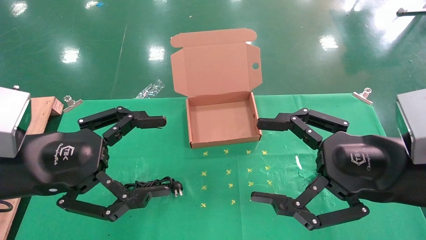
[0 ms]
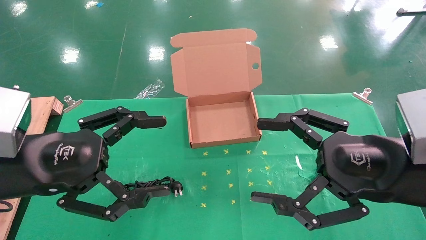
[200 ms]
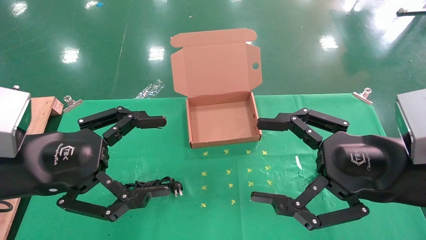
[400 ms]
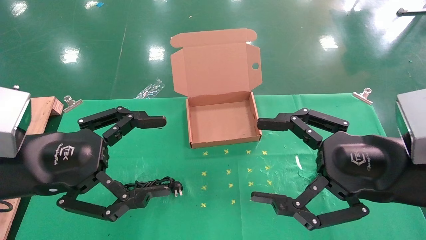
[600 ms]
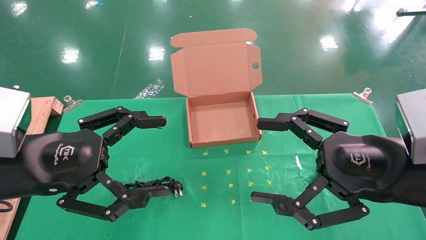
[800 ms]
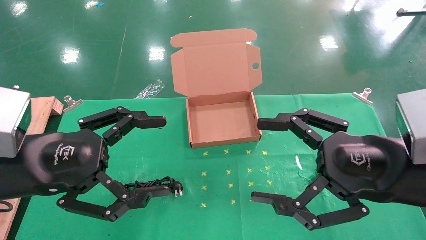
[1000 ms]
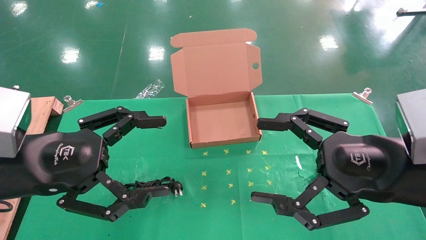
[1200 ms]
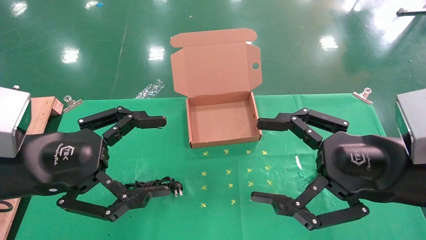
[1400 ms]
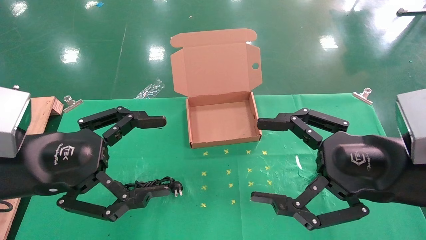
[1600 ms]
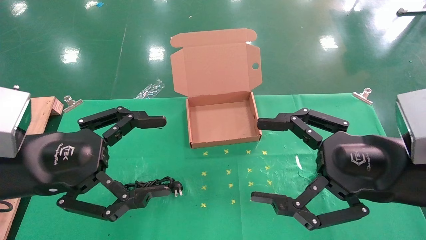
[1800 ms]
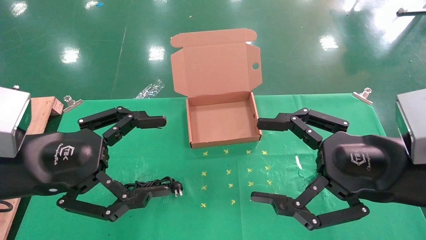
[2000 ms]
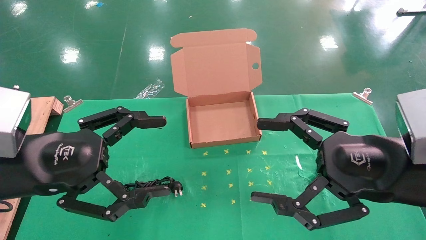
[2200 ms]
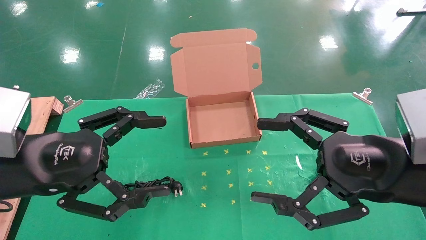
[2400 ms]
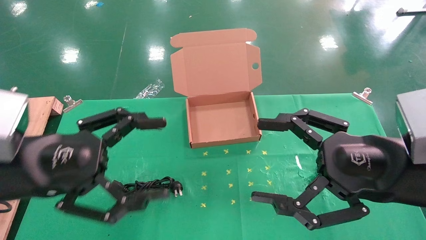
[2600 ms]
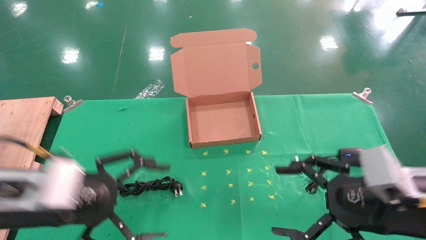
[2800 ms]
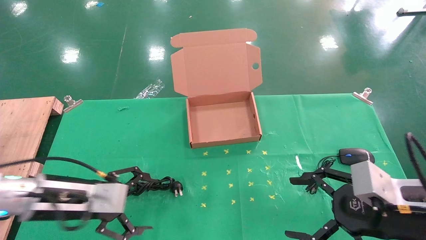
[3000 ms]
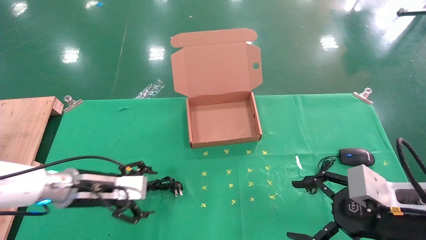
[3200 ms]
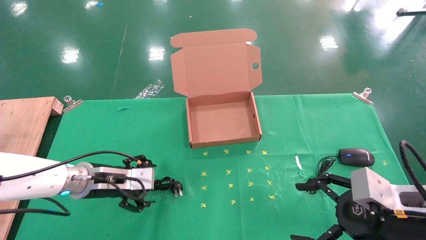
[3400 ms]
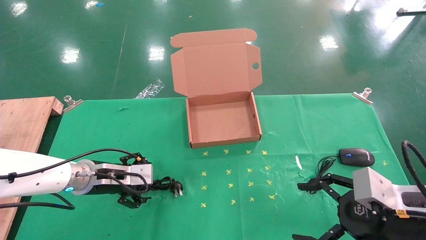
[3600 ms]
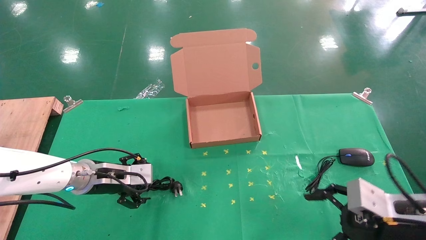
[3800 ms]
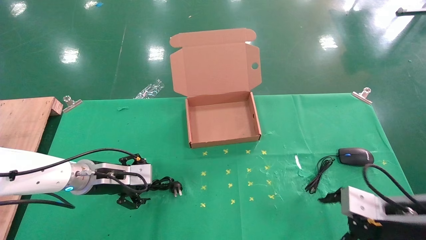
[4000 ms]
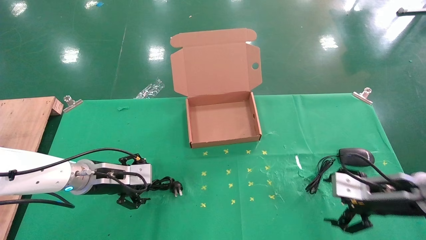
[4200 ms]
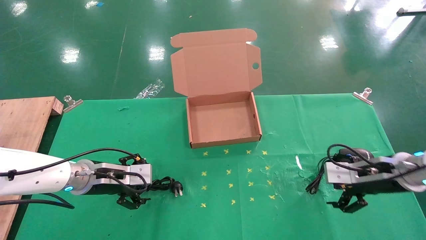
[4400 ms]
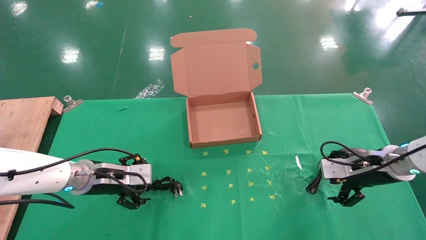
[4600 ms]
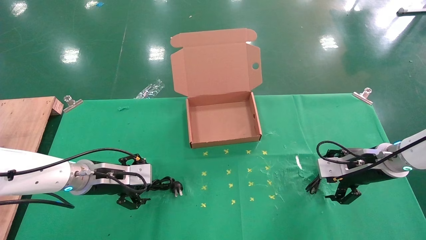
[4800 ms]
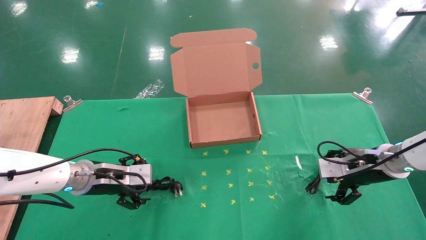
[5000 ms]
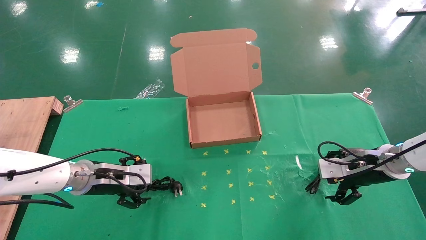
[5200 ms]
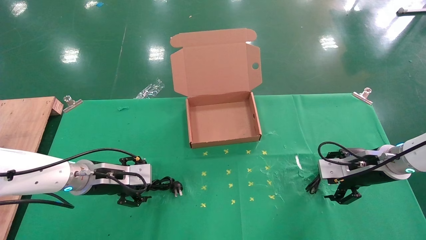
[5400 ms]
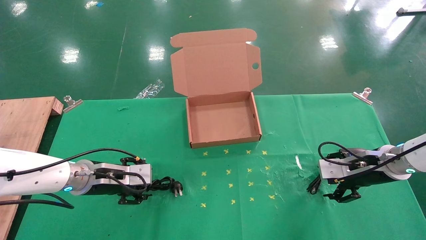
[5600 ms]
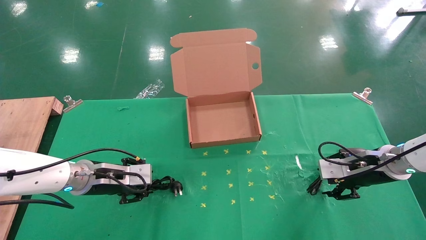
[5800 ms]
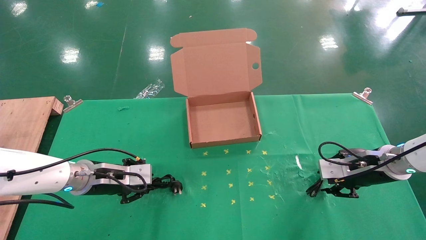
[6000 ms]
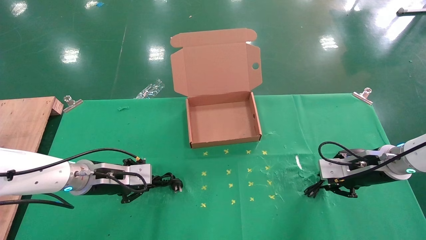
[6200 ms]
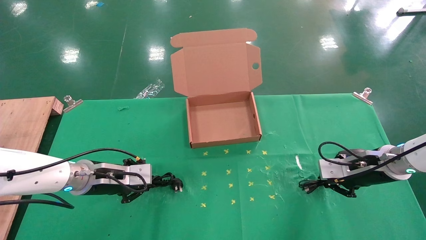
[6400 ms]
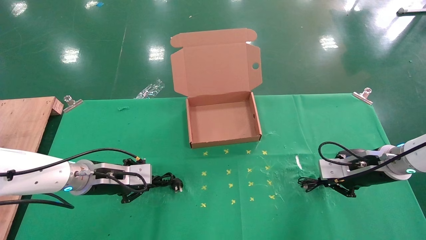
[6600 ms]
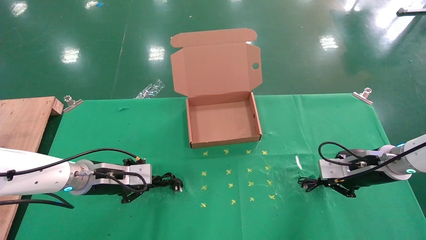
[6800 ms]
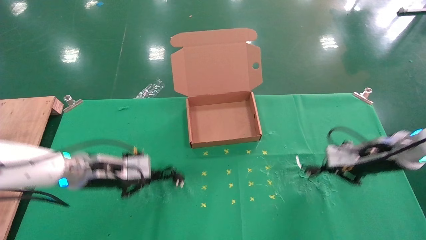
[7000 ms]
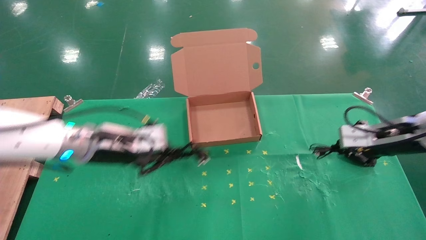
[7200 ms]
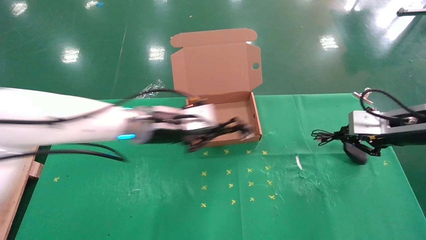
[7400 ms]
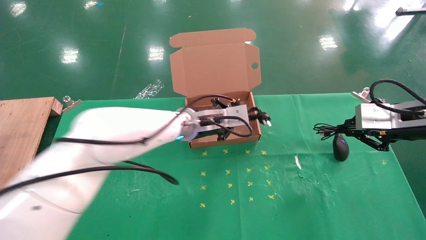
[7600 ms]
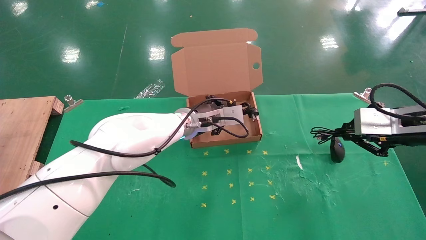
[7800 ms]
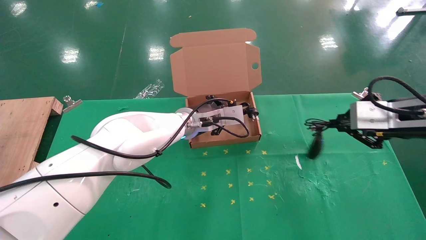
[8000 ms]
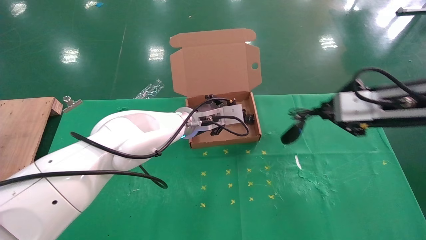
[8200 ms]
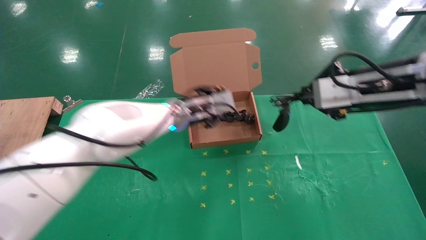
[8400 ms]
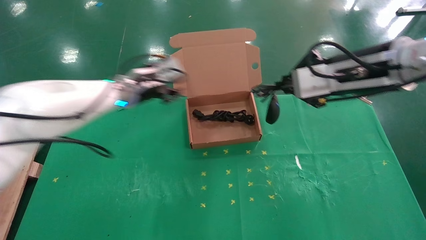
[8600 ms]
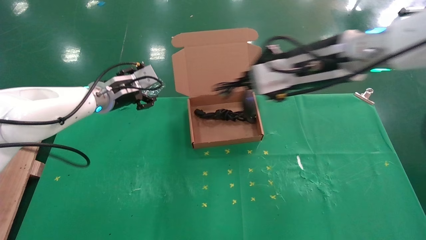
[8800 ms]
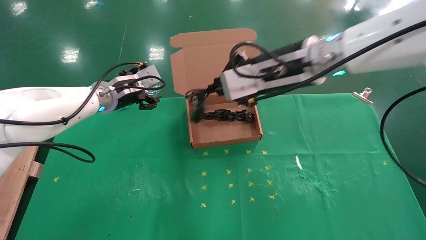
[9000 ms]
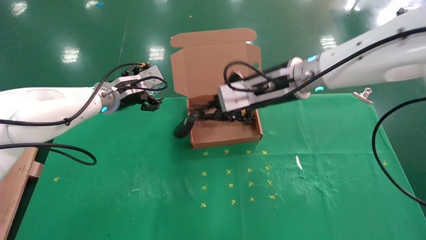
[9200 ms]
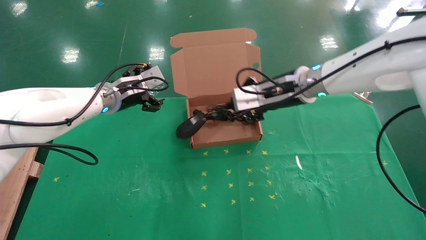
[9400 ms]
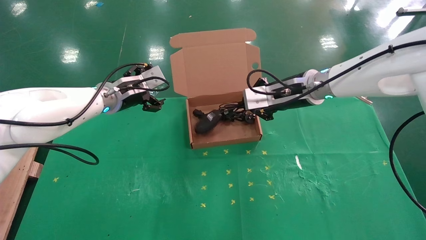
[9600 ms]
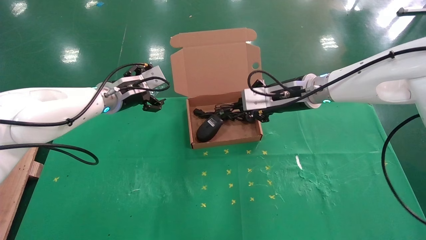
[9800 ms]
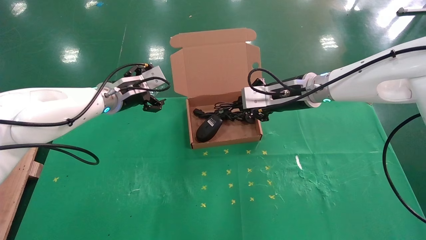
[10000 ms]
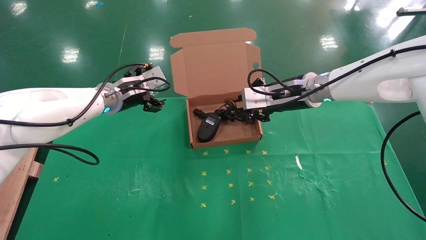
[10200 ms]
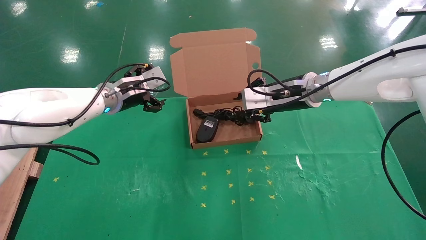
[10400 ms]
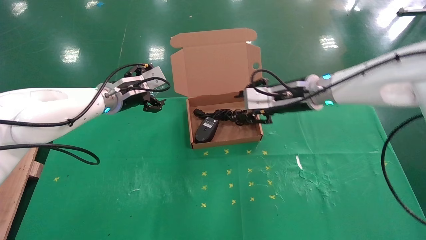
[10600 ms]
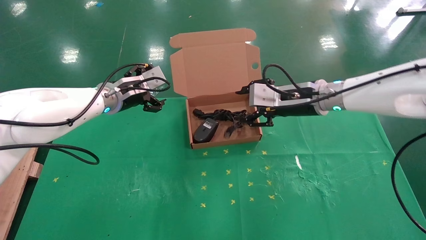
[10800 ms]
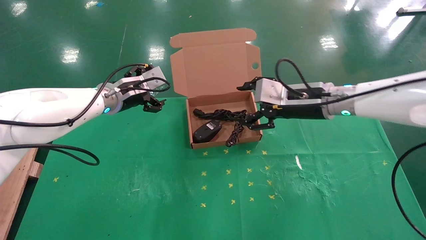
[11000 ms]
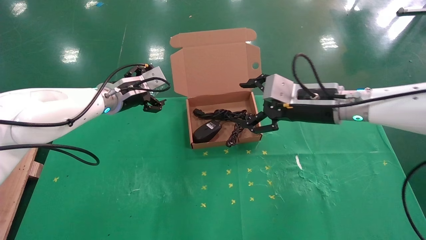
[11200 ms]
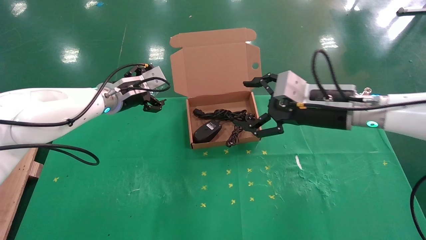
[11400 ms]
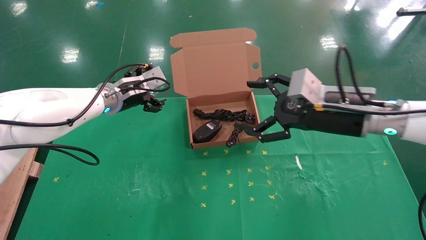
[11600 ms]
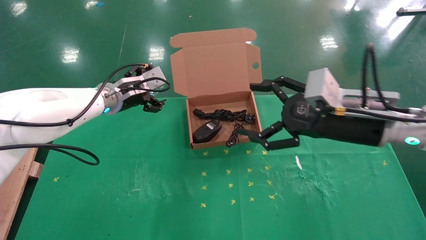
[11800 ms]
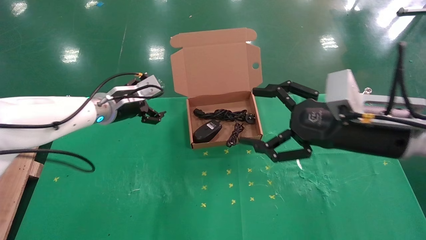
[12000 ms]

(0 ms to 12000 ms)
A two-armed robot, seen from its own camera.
Task of the whole recording: grasp data cable left put into box grasp mouse right put into box.
Step, 3000 ms - 6600 ms: Simultaneously pick up the mouse and power cord from the accessory packaging area.
Step, 6800 ms - 10200 ms: Place the mouse and power cord into the box.
0 ms - 1600 ms: Neither gripper changes place.
1600 ms - 3000 ms: The right gripper is displaced downward by about 10 cm. Meanwhile the left gripper heads downward and forward, covering about 15 cm.
3000 ms - 4400 ms: The left gripper is displaced forward by approximately 10 cm; the right gripper heads forward, covering about 15 cm.
4400 ms - 6000 ms: The left gripper closes up, while the right gripper closes.
6000 ms - 7600 ms: The right gripper heads upward and backward, covering some 15 cm, and closes, while the left gripper goes approximately 20 cm to the right and upward, and closes up.
7600 ms - 9000 ms: Both grippers move to the left, approximately 20 cm. The left gripper opens.
9000 ms - 10400 ms: The right gripper shifts about 10 cm forward and downward.
10400 ms - 12000 ms: The right gripper moves backward and to the right, roughly 20 cm, and opens.

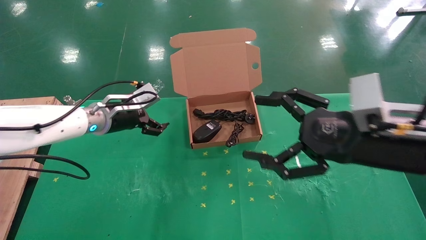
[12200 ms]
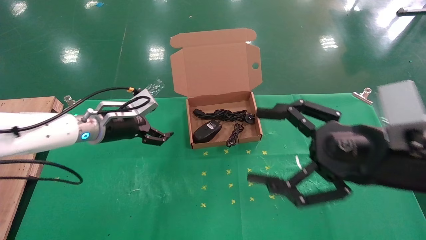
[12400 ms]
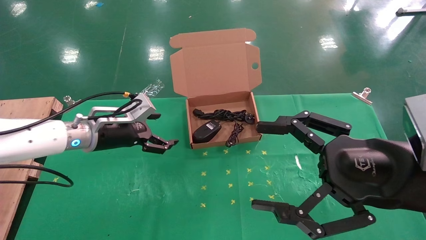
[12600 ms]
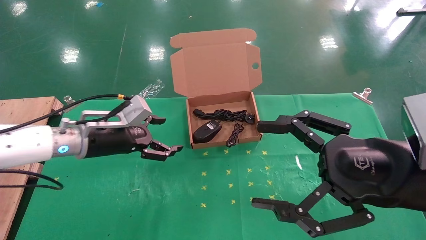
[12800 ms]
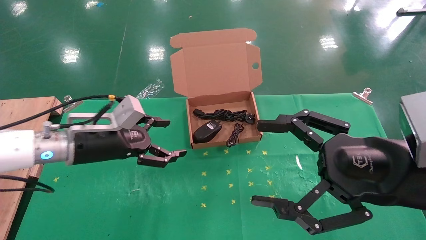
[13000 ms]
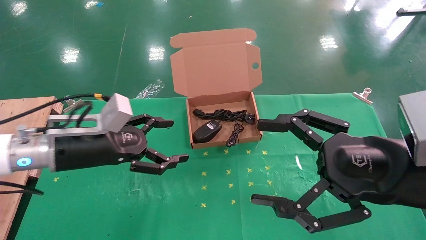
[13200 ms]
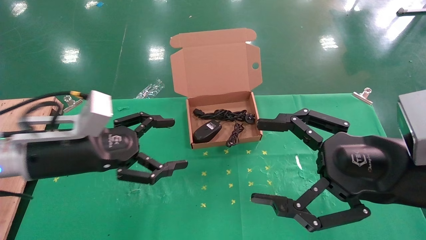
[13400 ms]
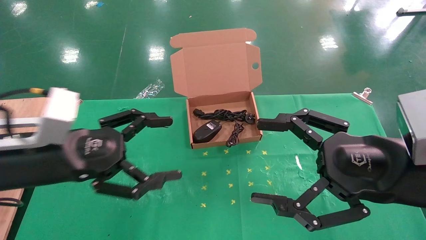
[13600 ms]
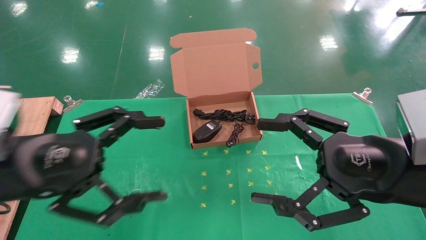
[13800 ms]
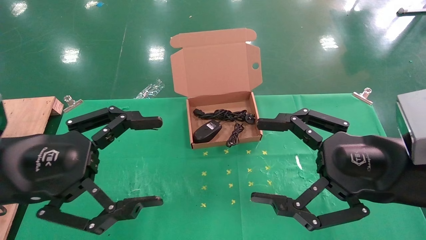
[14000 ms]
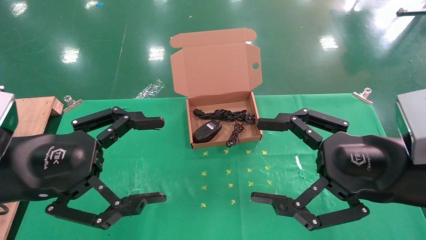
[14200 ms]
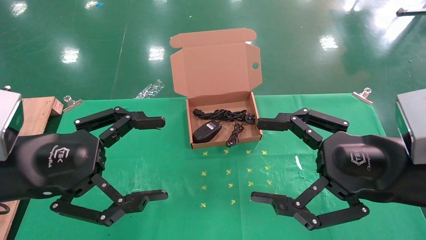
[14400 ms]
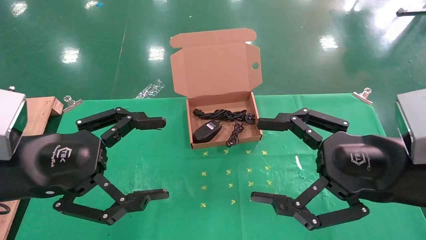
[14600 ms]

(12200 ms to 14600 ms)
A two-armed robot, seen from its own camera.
Task of the whole recording: grasp data cable left put into box grasp mouse right put into box.
12200 ms - 13400 ms: The left gripper travels backward by some 15 cm. The right gripper moves backward, approximately 5 cm.
13400 ms - 14600 ms: The left gripper shifts approximately 5 cm backward.
